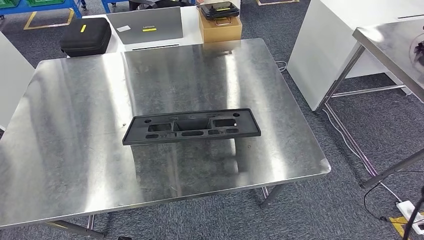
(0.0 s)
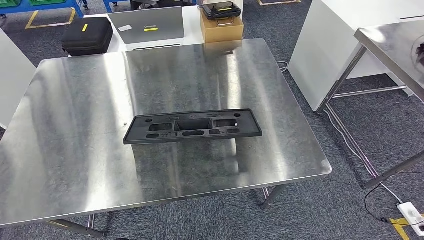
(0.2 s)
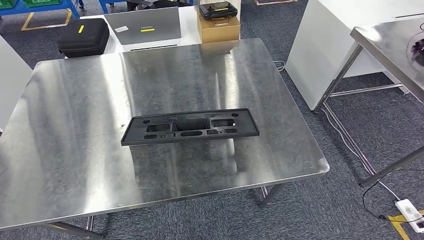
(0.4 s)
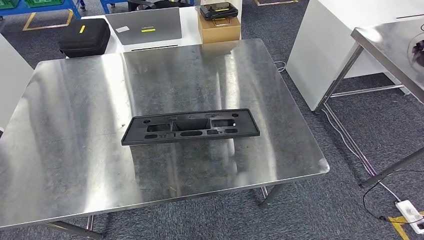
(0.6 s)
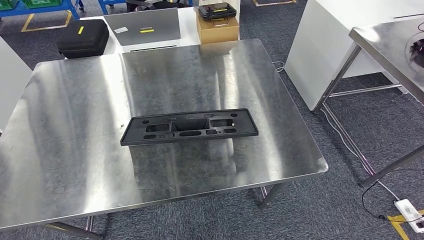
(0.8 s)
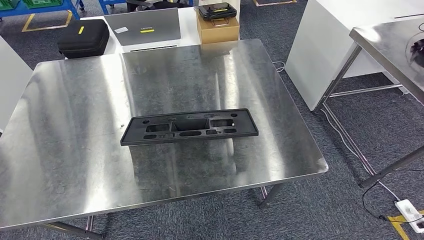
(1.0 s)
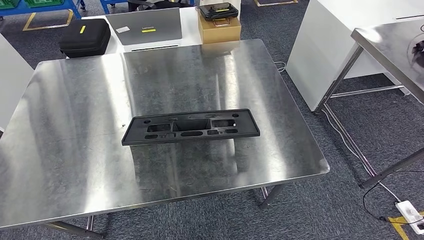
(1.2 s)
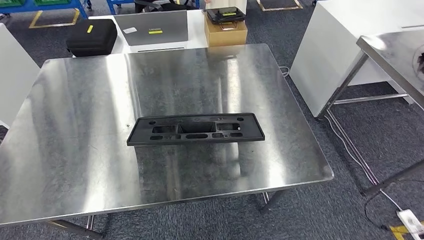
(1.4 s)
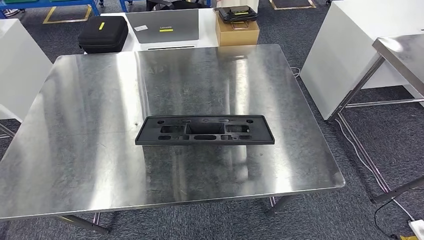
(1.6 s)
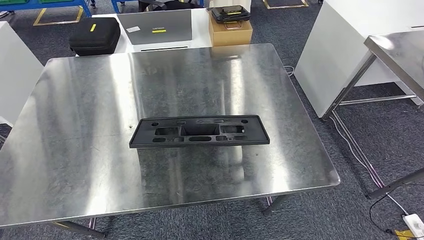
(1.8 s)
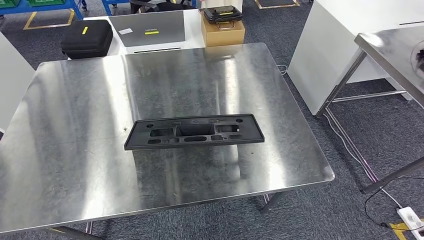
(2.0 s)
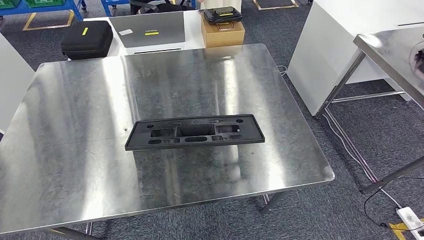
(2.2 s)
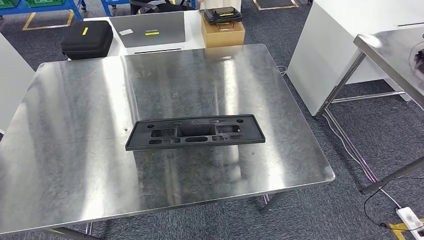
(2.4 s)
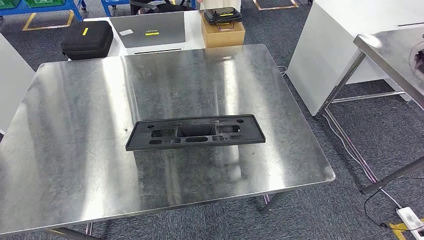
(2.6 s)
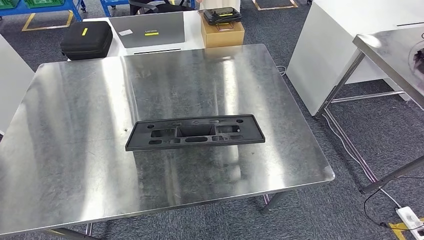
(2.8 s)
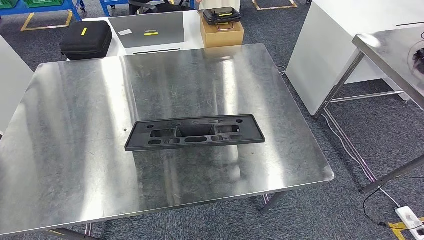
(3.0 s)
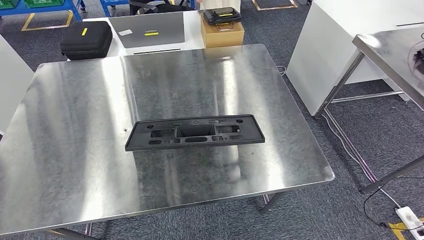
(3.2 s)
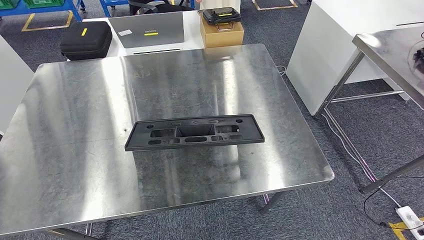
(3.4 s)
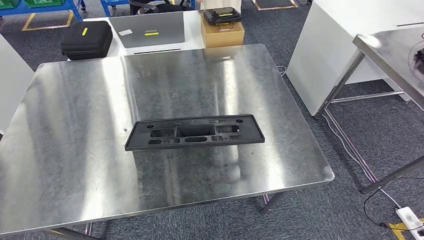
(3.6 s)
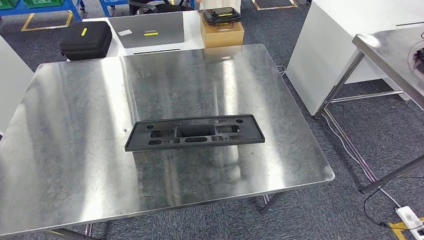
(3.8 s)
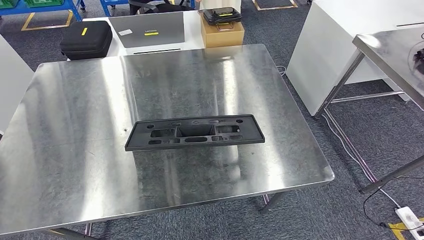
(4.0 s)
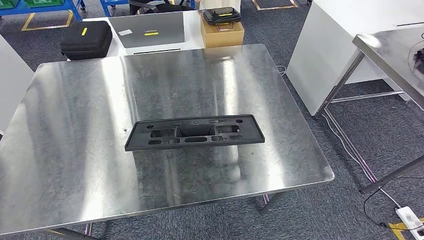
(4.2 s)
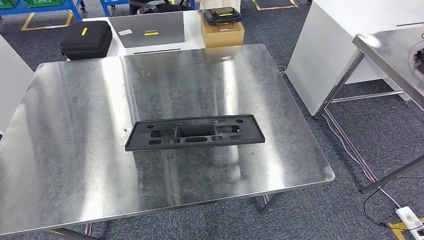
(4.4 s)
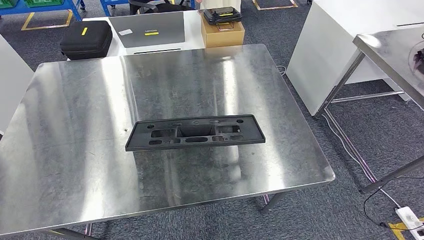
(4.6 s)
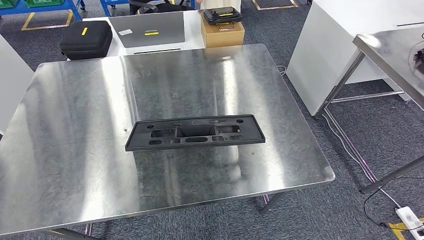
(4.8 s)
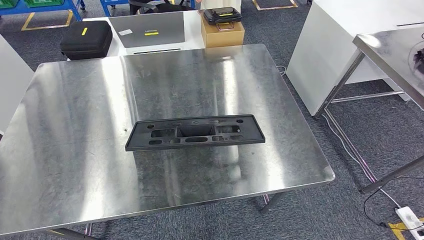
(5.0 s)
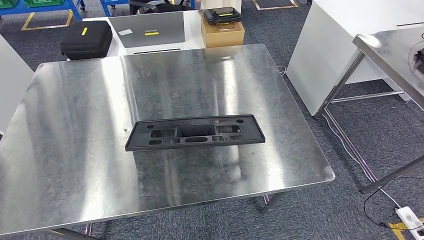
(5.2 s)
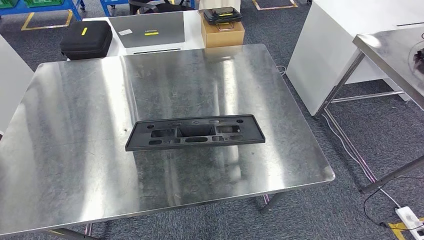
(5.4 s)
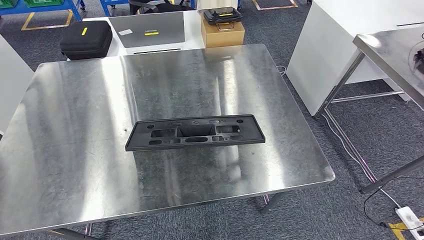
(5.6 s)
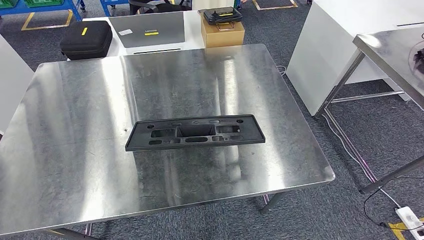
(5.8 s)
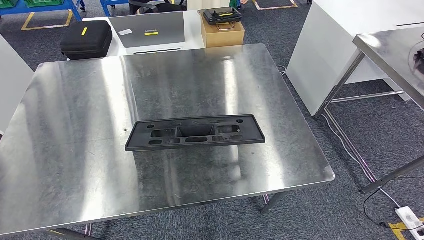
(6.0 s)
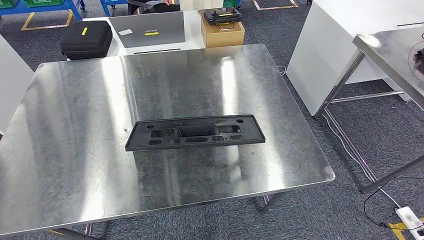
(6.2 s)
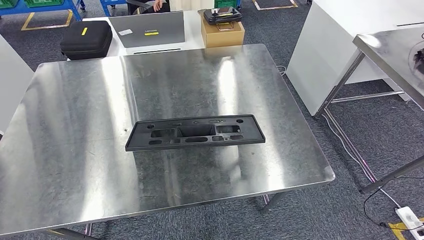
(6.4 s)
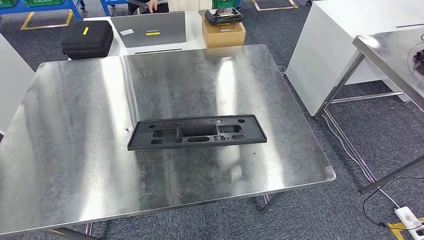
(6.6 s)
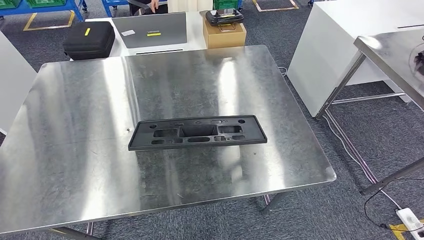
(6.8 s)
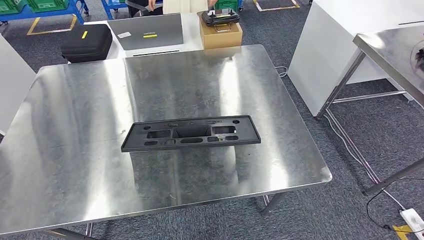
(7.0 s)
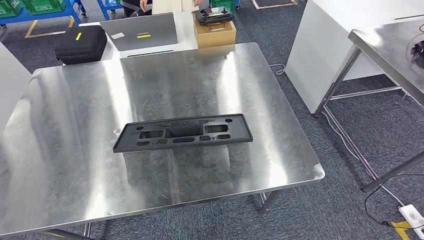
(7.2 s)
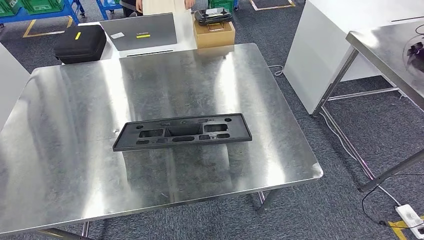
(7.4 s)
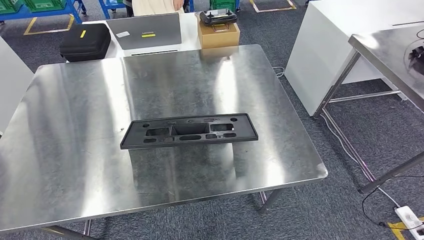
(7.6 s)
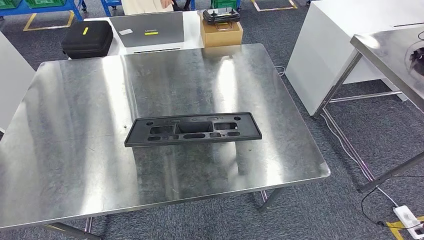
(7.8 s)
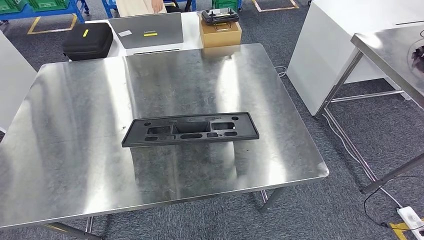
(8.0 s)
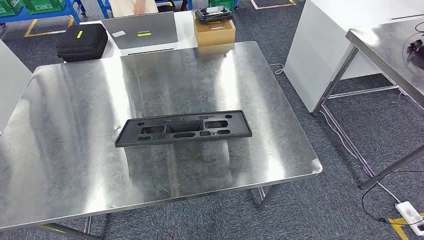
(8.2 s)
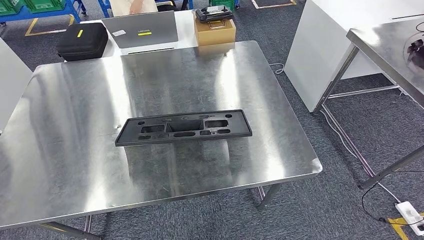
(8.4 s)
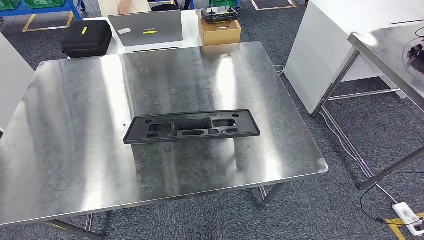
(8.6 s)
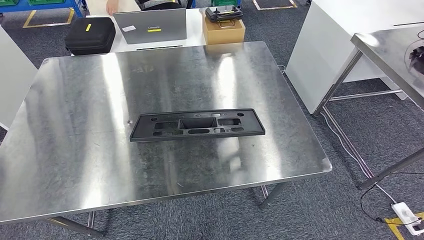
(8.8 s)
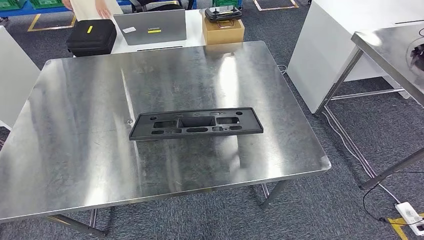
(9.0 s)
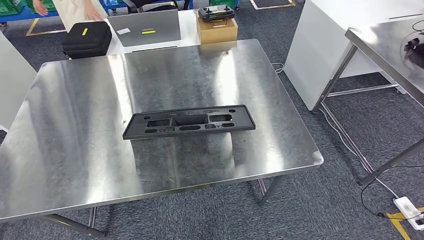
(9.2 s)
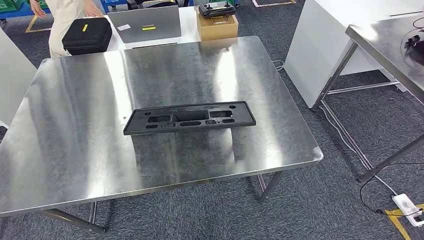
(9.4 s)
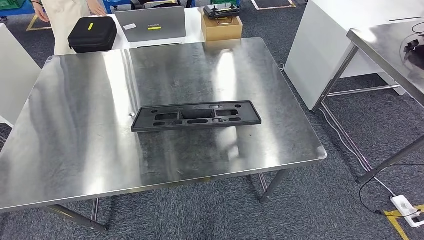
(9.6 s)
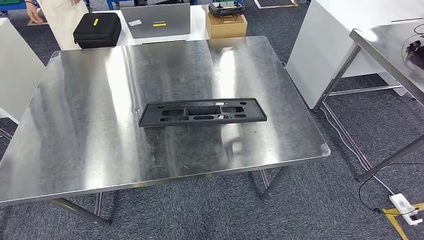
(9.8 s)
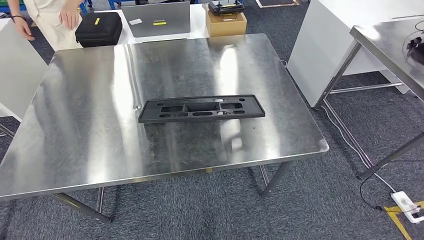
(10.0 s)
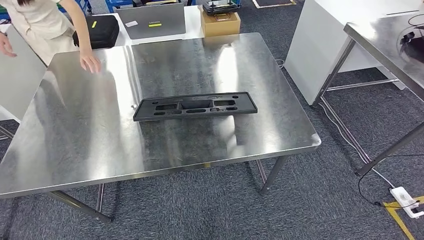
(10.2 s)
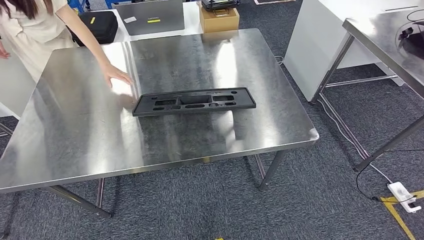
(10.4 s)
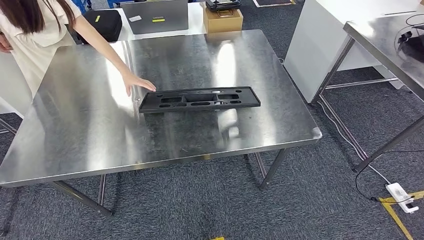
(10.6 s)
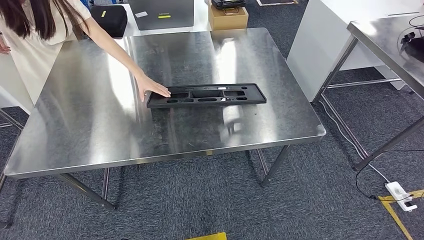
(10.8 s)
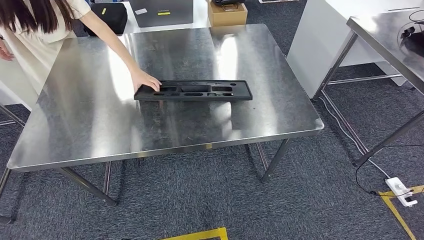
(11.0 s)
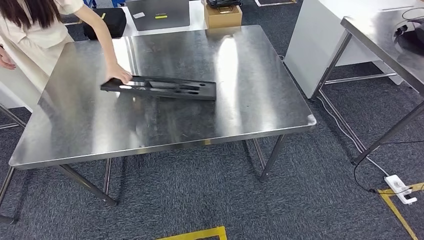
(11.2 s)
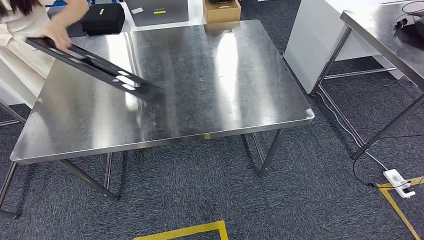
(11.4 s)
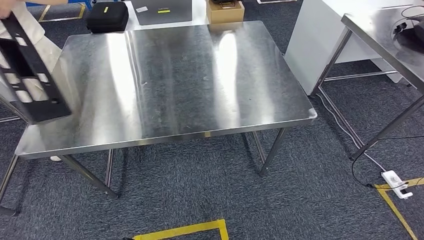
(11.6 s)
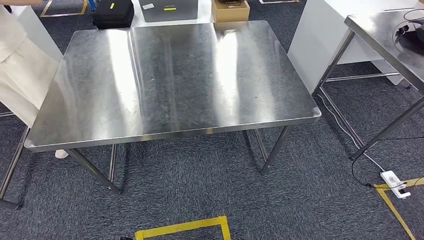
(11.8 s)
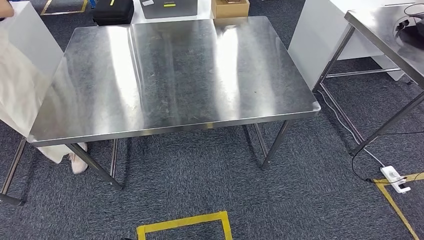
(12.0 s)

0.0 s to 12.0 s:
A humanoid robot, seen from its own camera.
6.0 to 7.6 s: The two hands keep their place.

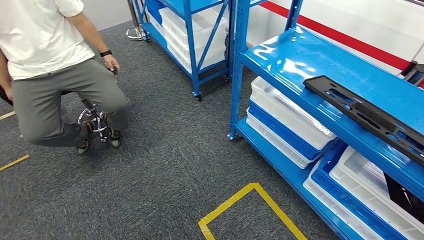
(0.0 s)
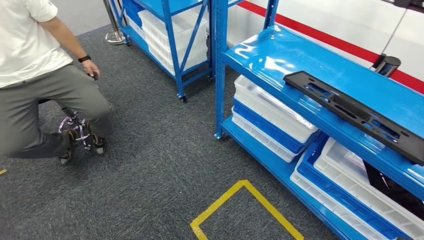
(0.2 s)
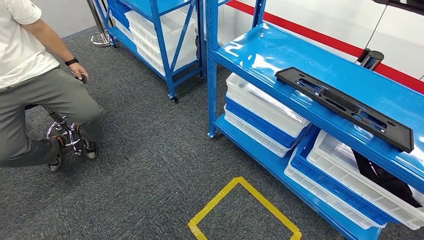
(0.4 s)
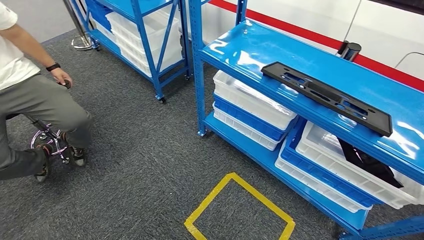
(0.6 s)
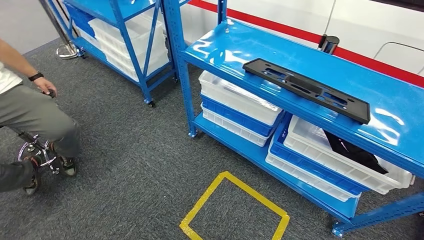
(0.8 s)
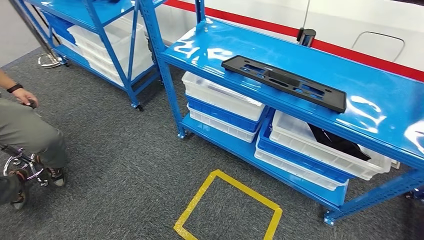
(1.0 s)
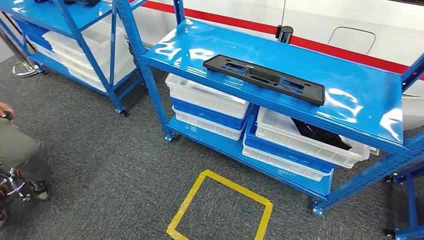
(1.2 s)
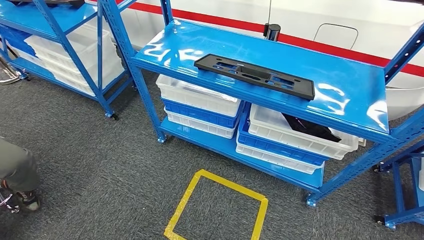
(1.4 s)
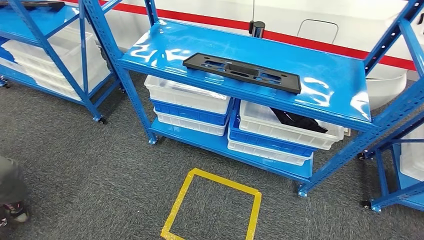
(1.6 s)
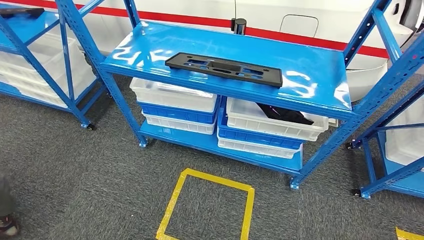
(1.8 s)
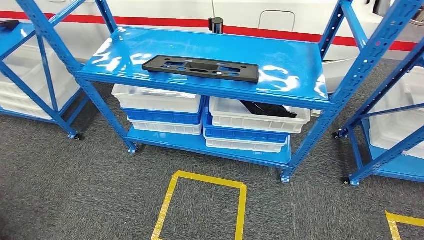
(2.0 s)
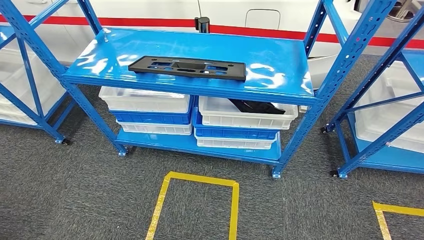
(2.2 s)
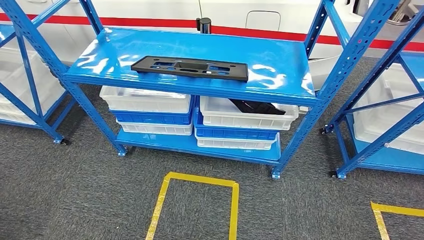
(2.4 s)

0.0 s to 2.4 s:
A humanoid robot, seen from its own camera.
Step, 0.0 to 2.4 s: Move to the initial position of the shelf.
